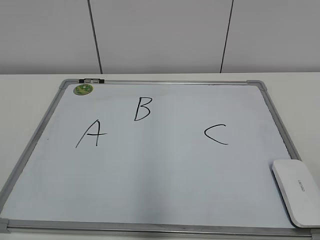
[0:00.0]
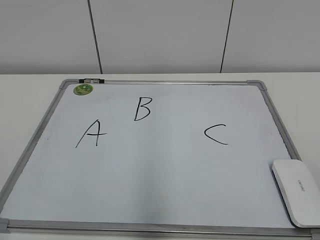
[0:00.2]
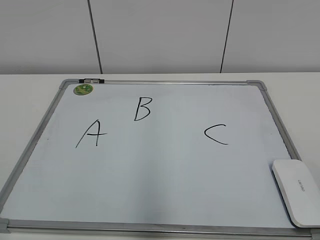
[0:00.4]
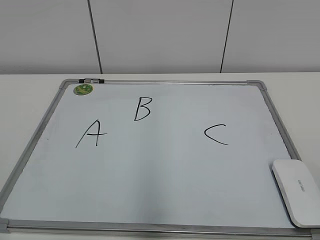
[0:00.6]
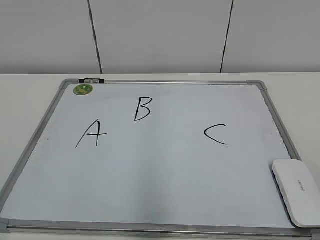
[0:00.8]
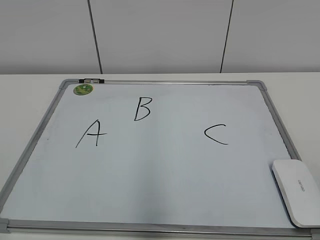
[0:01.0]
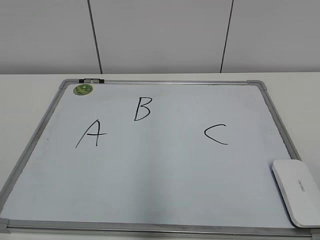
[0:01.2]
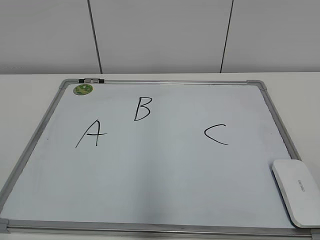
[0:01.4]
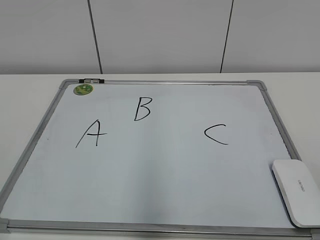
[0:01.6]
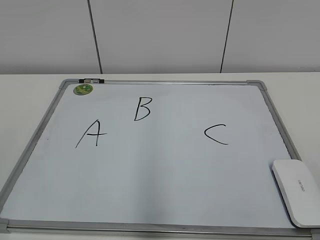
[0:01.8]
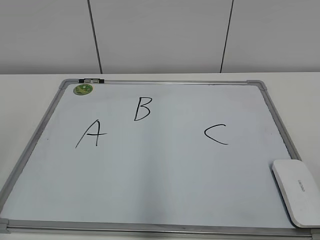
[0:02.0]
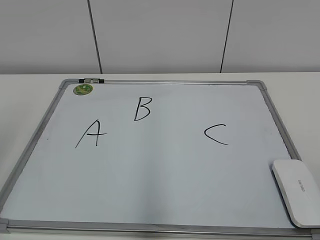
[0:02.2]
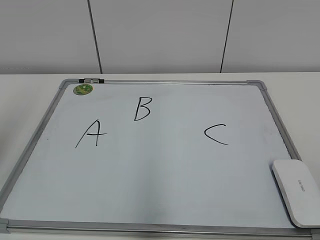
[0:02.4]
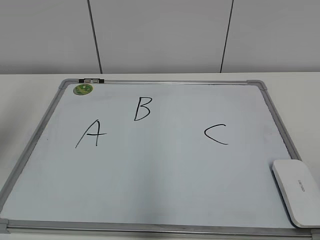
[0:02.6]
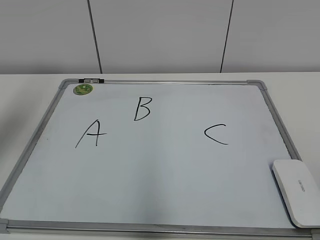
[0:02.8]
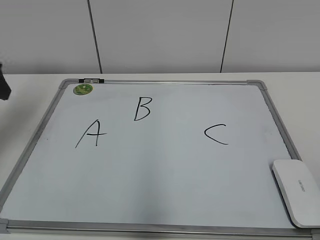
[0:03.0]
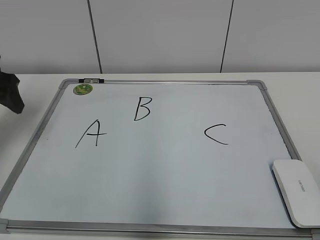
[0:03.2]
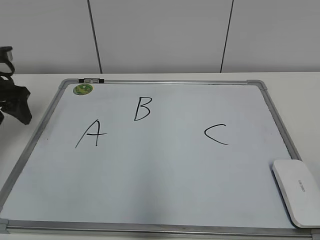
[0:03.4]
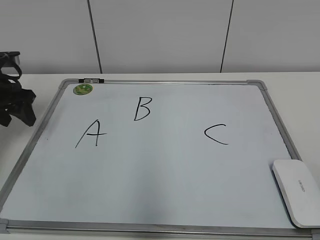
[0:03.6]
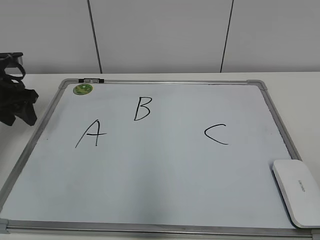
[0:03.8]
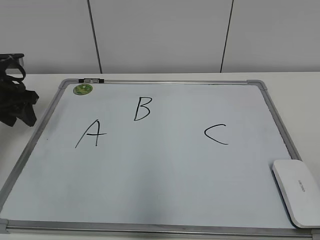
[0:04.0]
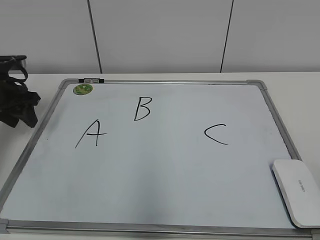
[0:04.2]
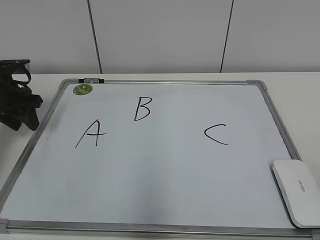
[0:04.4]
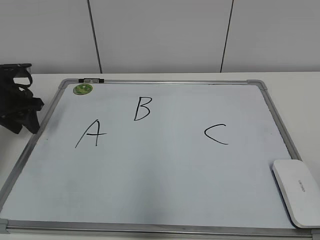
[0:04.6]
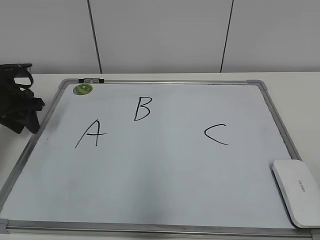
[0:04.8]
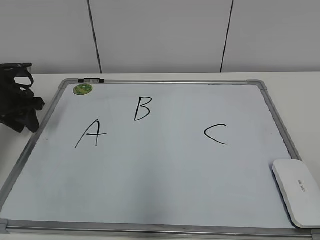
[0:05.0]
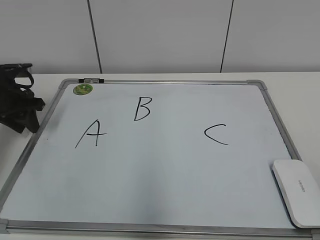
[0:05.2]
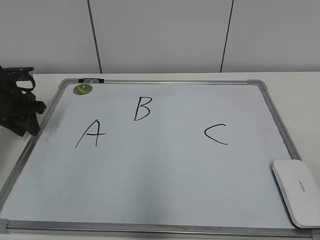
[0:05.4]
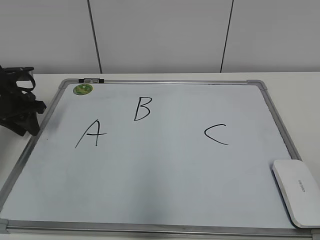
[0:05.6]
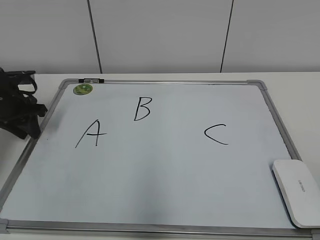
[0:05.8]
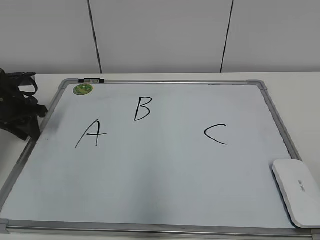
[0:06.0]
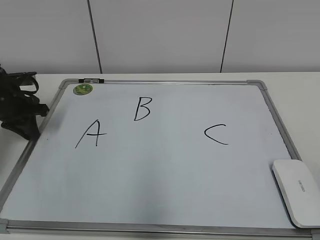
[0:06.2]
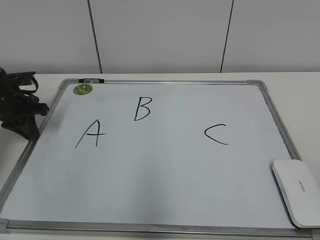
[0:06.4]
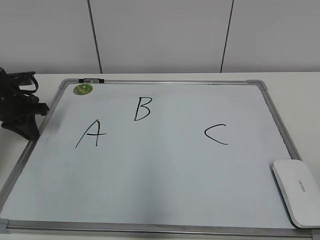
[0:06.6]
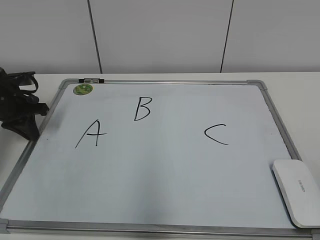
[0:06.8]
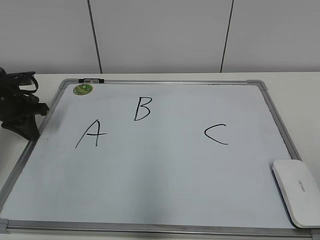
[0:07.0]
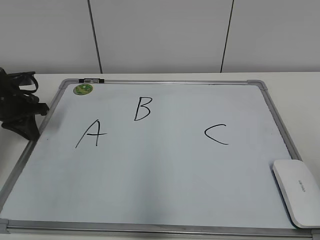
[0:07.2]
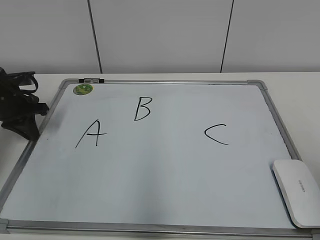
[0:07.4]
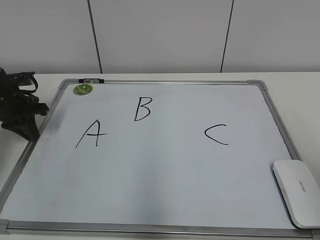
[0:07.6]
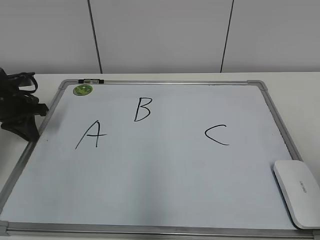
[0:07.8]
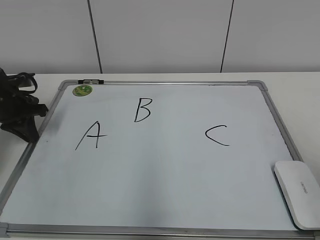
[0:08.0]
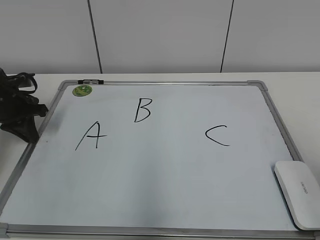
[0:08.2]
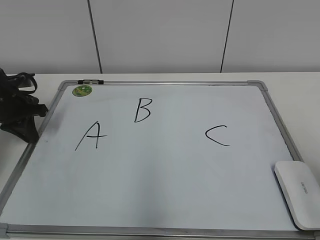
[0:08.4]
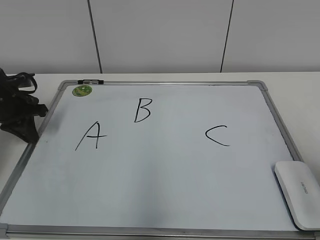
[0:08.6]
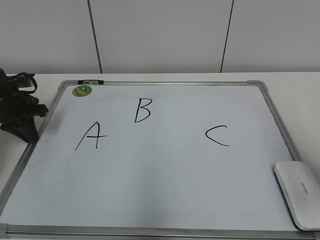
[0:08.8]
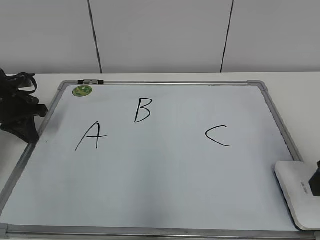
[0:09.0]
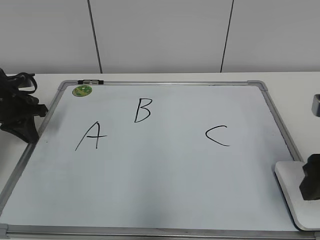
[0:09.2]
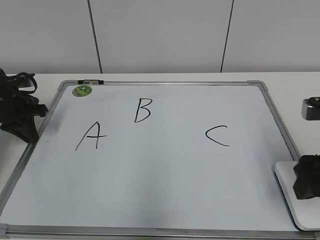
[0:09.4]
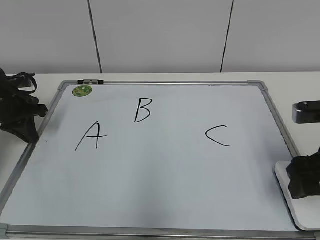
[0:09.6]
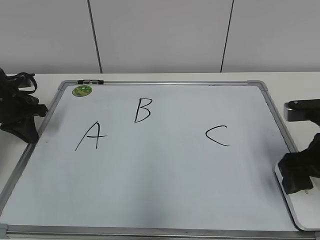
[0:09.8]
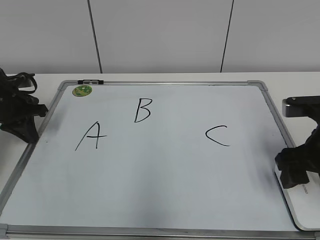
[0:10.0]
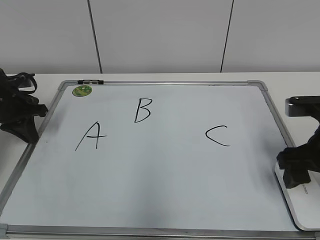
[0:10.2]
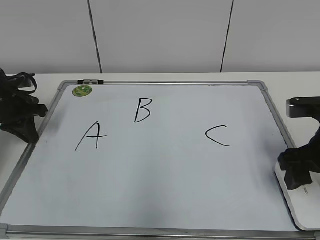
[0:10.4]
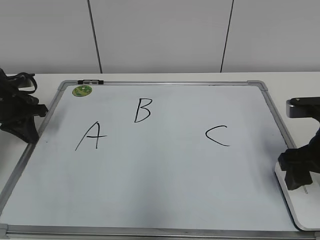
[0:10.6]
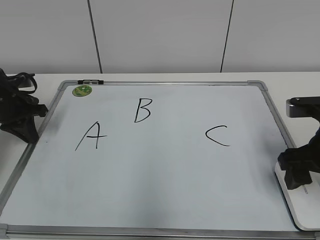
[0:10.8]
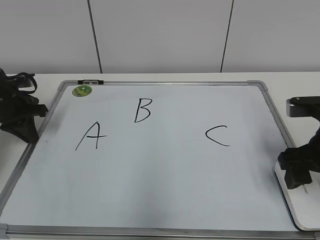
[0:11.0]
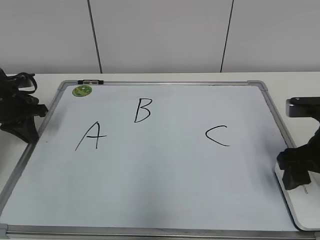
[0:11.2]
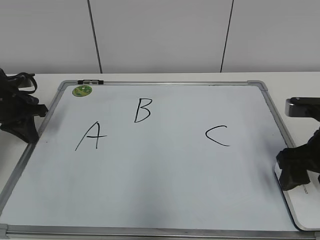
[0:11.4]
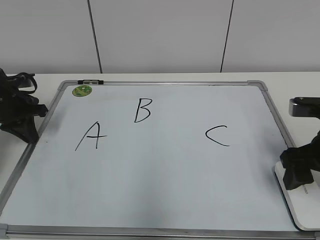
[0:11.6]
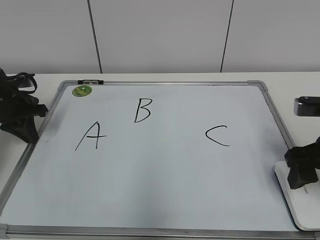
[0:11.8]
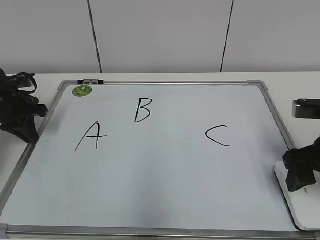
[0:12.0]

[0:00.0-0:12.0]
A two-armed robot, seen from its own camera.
Task of the whole recording: pick up the eraser on the blackboard and erase the letter "B".
Step, 0:00.0 to 0:06.6: Hold the drawing board steady with your left hand.
0:01.6 to 0:03.0: The left gripper is displaced forward by roughly 35 cm.
0:03.0 to 0:04.4: The left gripper travels downward and forward by some 15 cm.
0:04.4 to 0:06.0: There are only small adjustments of the grippers.
0:07.6 to 0:09.0: The right gripper goes roughly 10 cm forward.
0:09.0 to 0:10.4: The right gripper heads forward and downward, covering some 10 cm.
0:10.4 to 0:12.0: The grippers make only small movements.

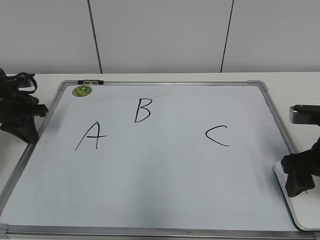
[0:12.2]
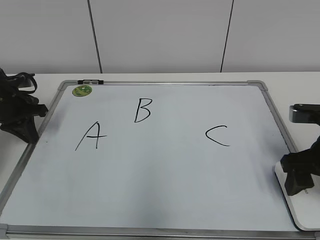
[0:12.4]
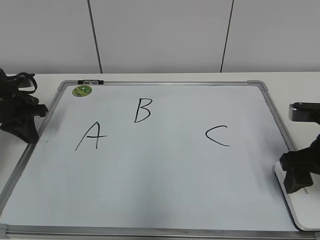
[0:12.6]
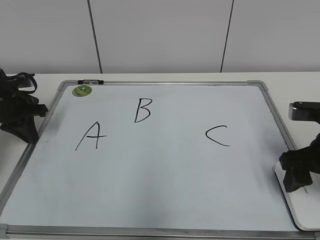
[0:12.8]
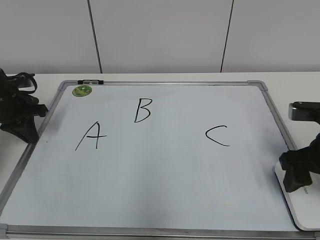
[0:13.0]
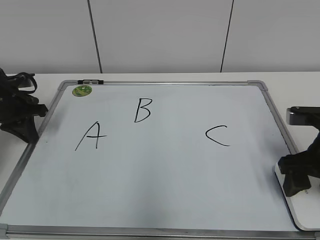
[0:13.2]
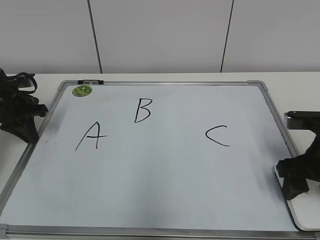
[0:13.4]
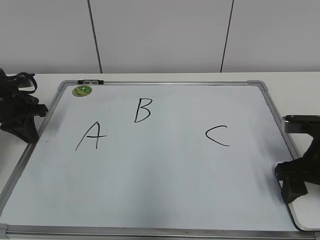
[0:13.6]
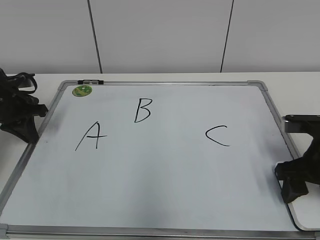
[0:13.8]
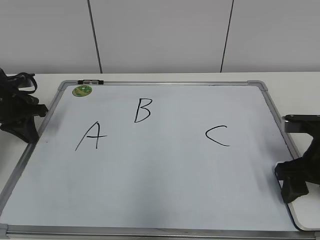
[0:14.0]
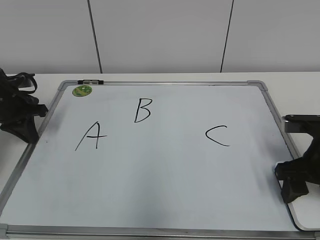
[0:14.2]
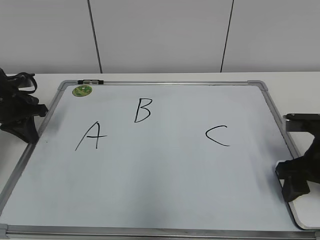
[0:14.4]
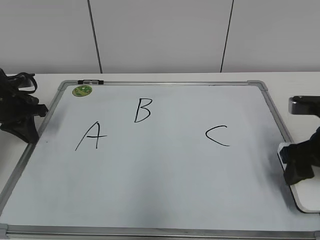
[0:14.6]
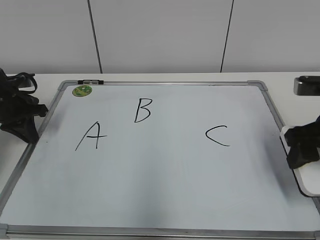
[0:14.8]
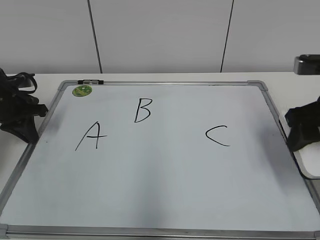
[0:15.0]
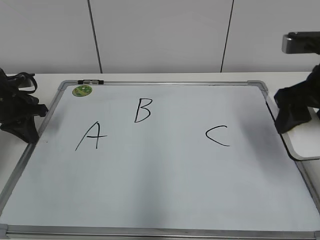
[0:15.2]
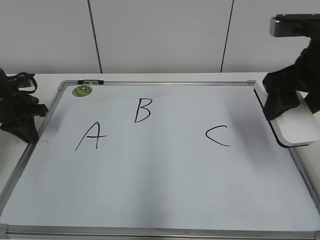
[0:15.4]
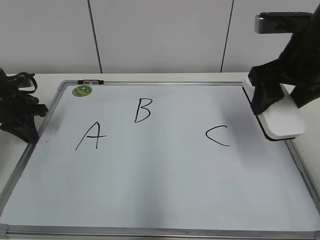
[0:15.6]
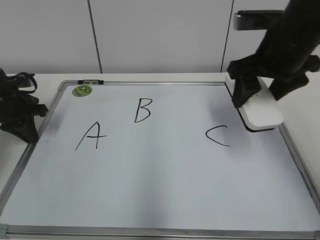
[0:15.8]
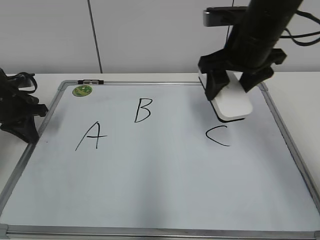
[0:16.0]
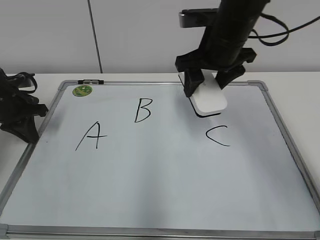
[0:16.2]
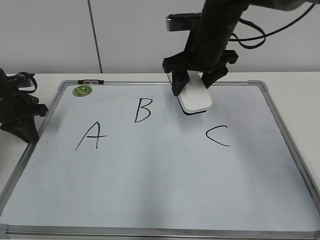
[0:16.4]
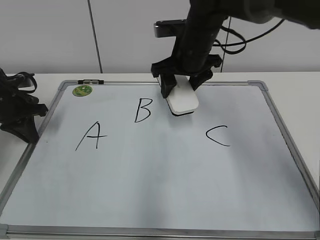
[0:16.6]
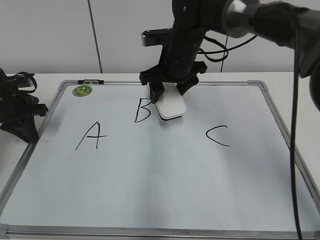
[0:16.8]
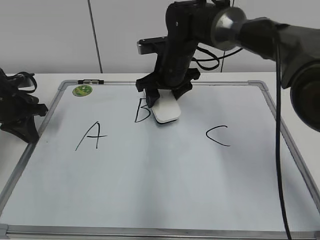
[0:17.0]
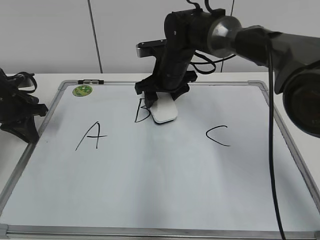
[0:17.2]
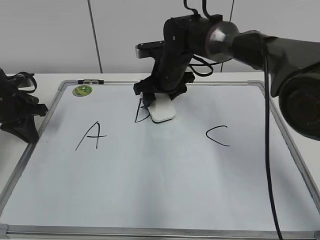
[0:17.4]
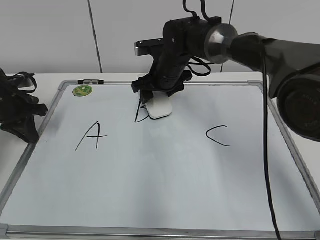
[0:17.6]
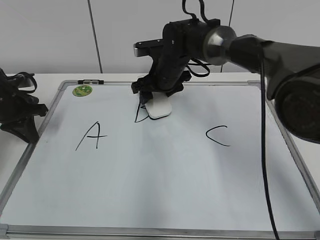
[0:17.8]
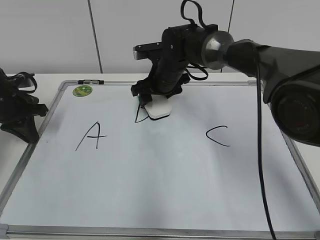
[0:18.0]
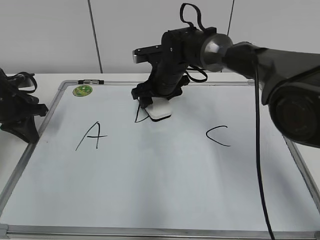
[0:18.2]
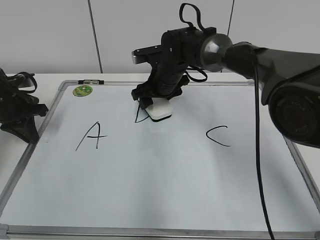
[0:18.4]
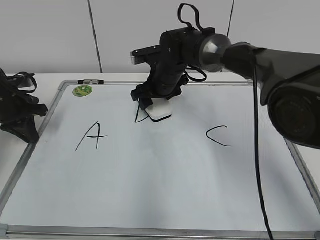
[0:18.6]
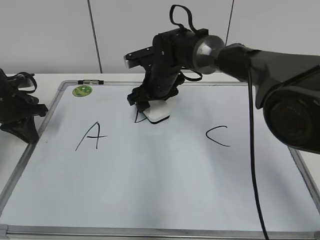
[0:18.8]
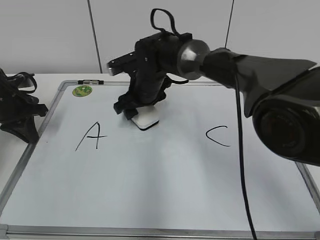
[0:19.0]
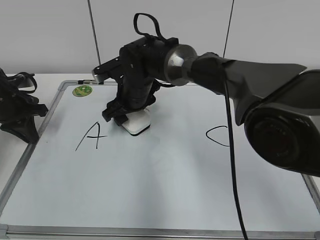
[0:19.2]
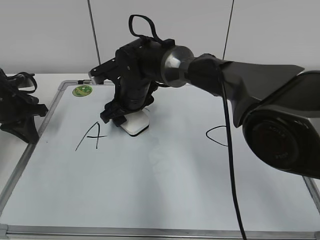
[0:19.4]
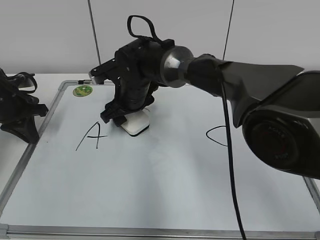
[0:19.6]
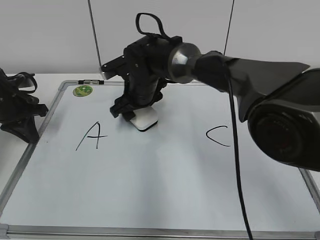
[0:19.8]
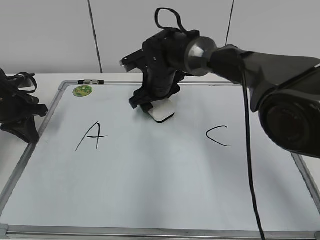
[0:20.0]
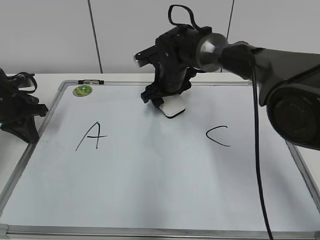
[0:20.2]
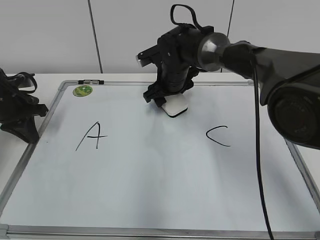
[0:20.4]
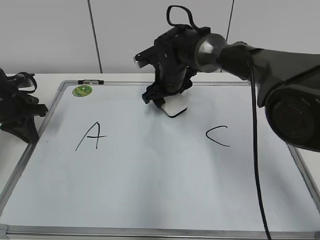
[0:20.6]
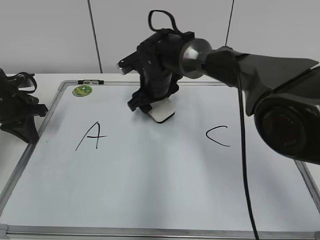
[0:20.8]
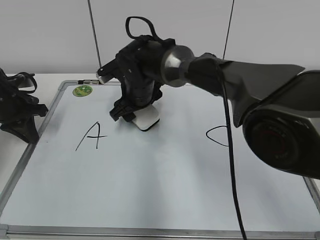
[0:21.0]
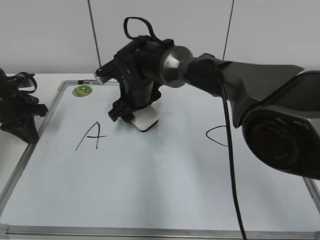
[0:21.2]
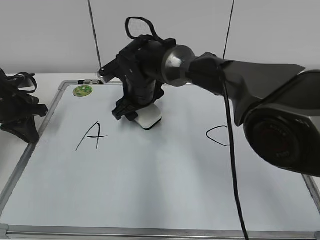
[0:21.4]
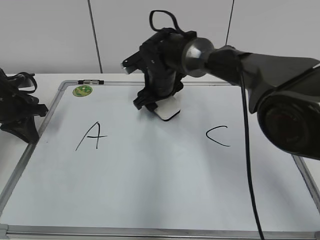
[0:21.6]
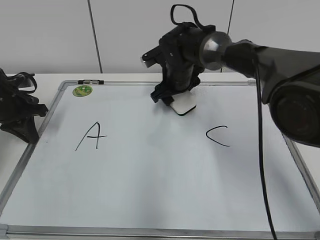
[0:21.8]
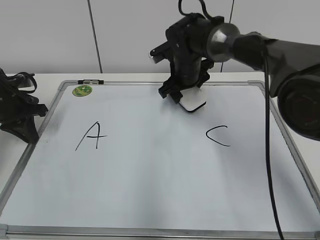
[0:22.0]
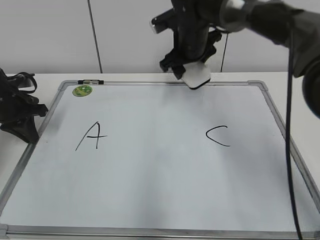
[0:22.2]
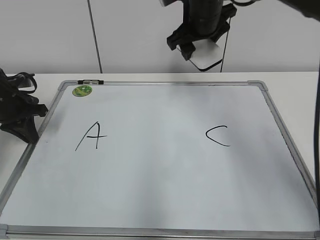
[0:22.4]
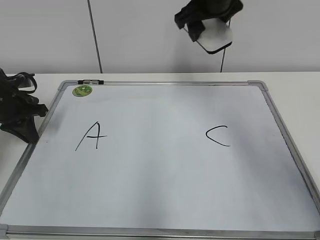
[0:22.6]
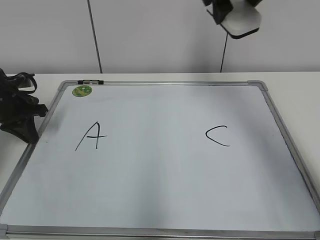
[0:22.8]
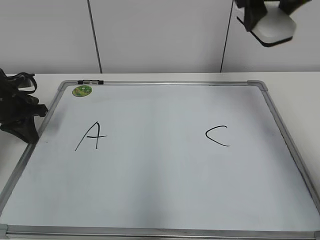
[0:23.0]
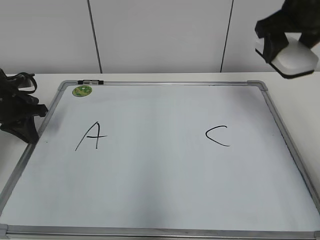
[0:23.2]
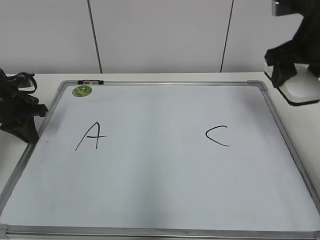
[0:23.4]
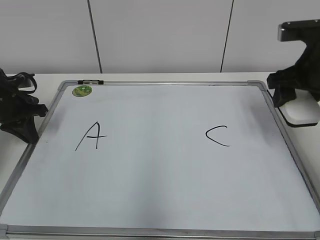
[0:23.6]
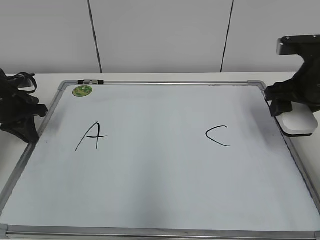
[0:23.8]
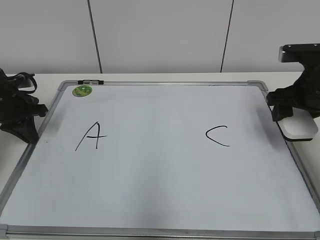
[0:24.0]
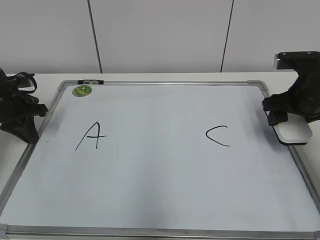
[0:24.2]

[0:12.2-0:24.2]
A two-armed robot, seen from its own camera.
Task of the whole recording: pick up the eraser on the blackboard and erase the letter "B".
Step, 0:14.0 to 0:20.6: Erase the letter B with your right hand.
0:12.2 to 0:13.8: The grippers stay close to where they were, moving slightly.
0:13.8 to 0:15.2: The right gripper shifts about 10 cm upward.
0:15.2 to 0:16.6: The right gripper goes roughly 20 cm to the left and forward.
0:16.6 to 0:18.2: The right gripper moves downward, roughly 10 cm.
0:18.2 to 0:19.8: The right gripper shifts roughly 5 cm to the left.
0:19.8 to 0:21.2: The right gripper goes to the right and returns, roughly 5 cm each way.
0:21.2 to 0:22.6: The right gripper goes roughly 25 cm upward and to the right.
0:22.6 to 0:24.2: The right gripper moves to the right, downward and backward, some 25 cm.
